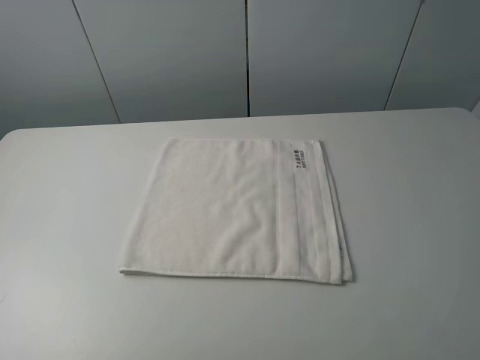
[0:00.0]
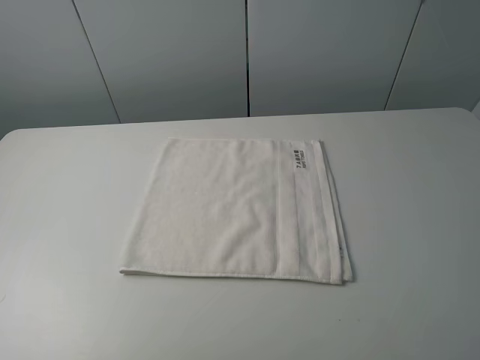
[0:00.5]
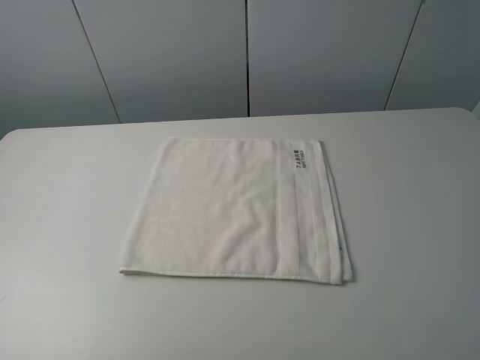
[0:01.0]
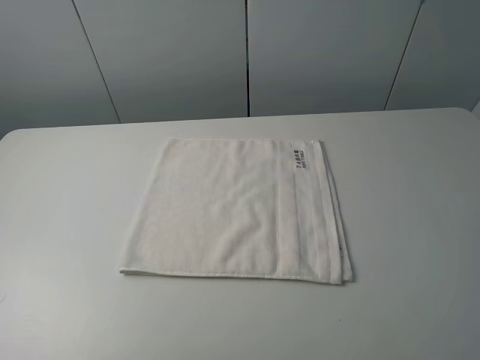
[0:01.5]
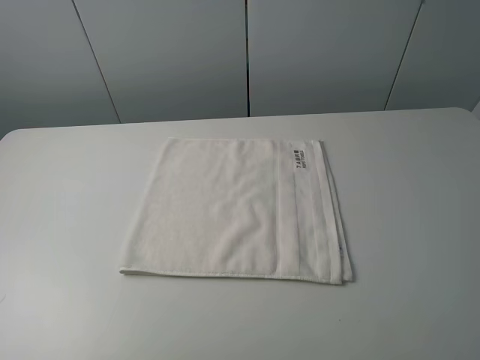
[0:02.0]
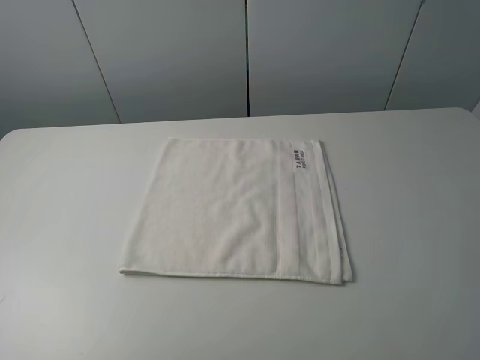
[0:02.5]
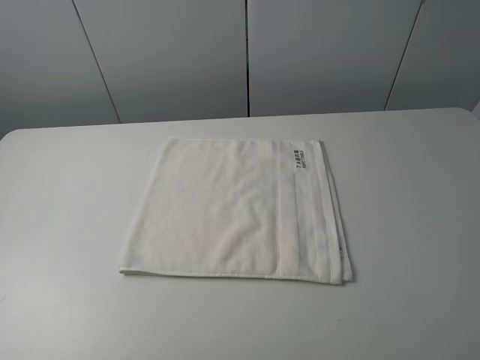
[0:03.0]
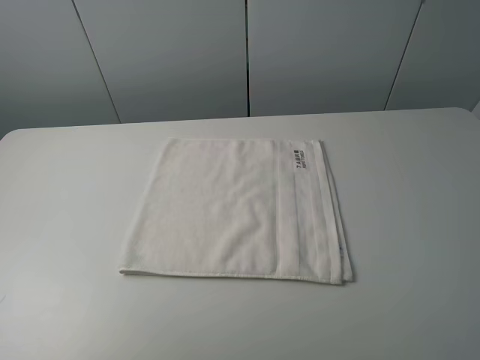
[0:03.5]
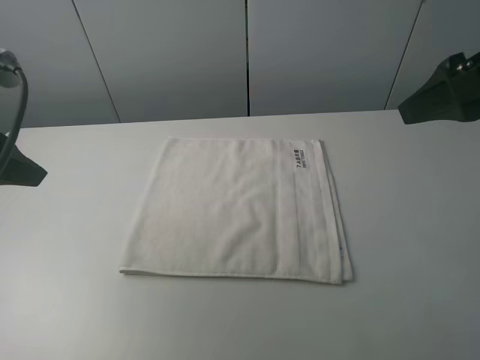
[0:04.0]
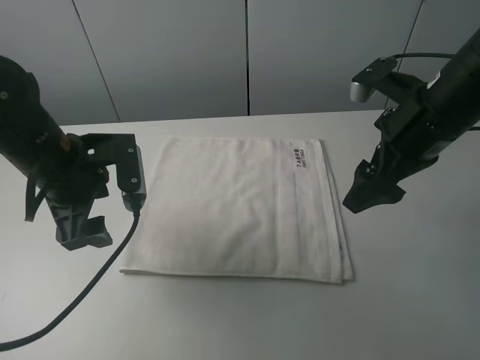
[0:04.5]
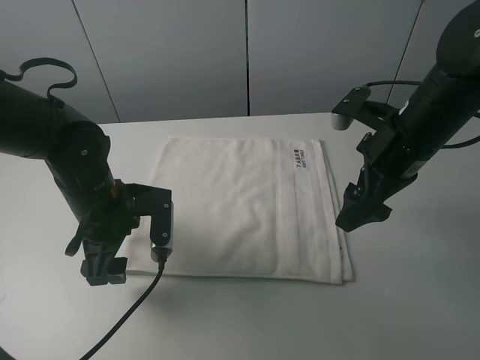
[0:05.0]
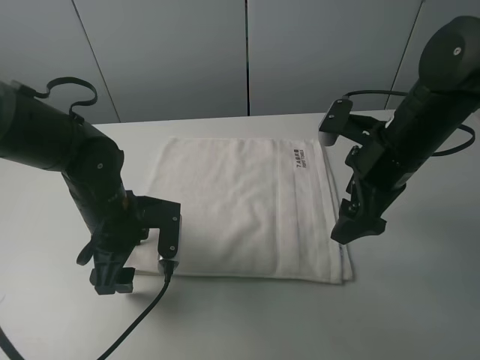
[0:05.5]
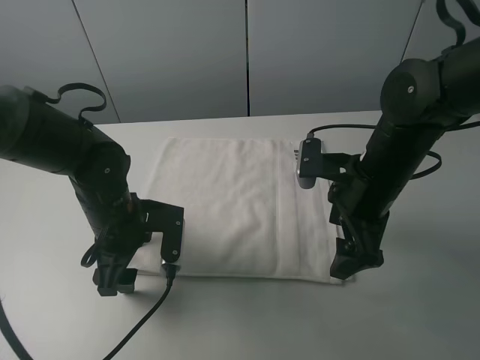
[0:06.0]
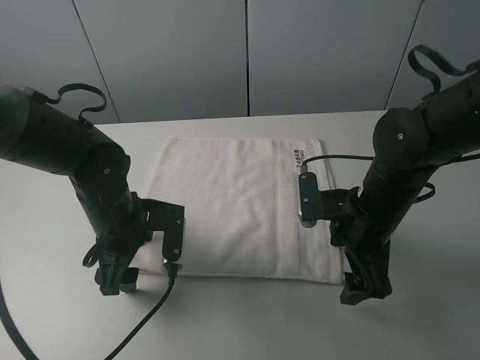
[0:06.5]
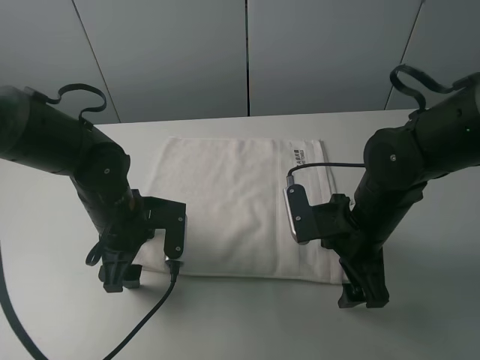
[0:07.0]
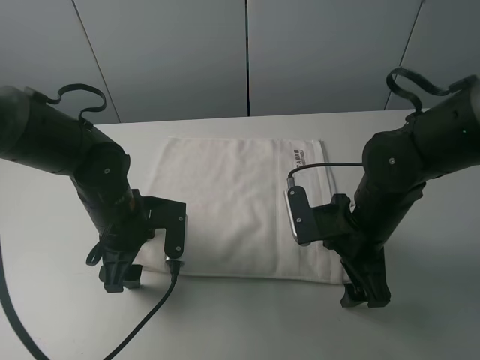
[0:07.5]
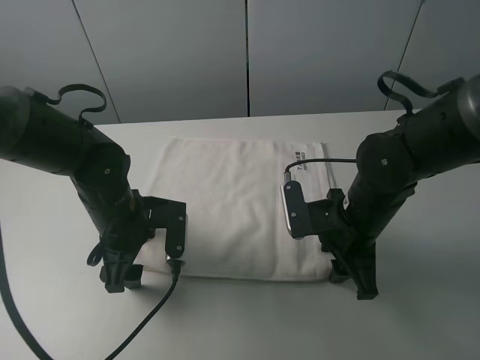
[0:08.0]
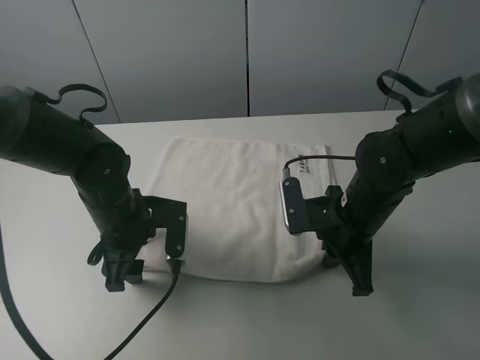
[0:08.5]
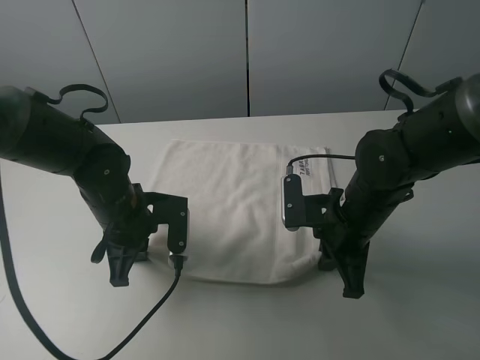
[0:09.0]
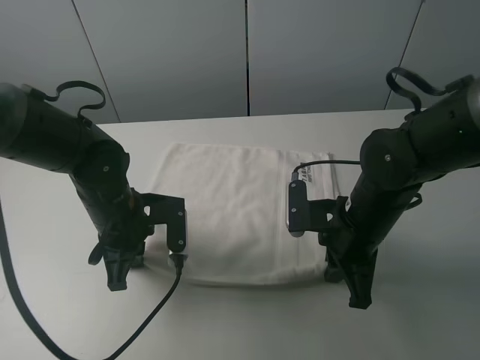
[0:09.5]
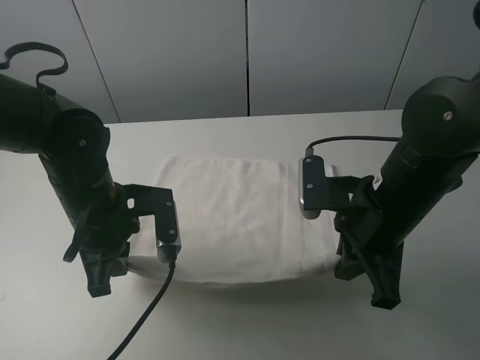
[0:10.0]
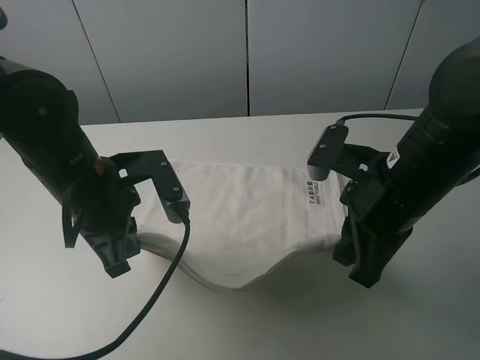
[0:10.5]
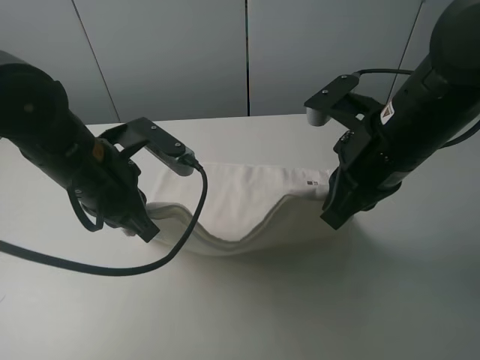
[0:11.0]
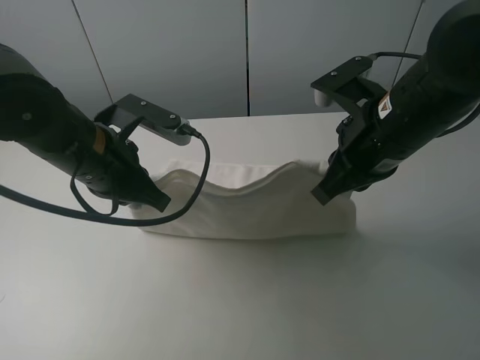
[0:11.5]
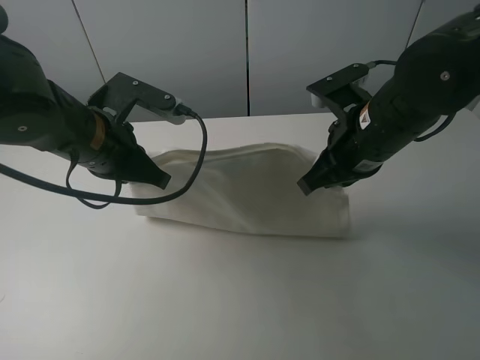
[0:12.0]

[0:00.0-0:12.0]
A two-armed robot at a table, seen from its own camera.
Task of the whole recording: fold the towels on the table.
Step, 0:00.0 to 0:08.0: Grasp the white towel with the right gripper.
0:00.0 to 0:02.0: Both grippers stay about where they are.
0:02.0 to 0:04.0: The two grippers go approximately 20 cm forward.
0:04.0 to 0:06.0: The left gripper goes some 20 cm downward and to the right. The right gripper moves downward and to the left, about 20 cm.
0:06.0 to 0:08.0: The right gripper shifts roughly 5 cm downward, and closes its fingers.
0:08.0 to 0:10.0: The left gripper ends up some 5 cm from where it was, and closes its fingers. The right gripper goes some 5 cm upward, and closes.
0:10.0 to 0:12.0: The right gripper is displaced forward by about 5 cm, while the left gripper goes approximately 5 cm upward.

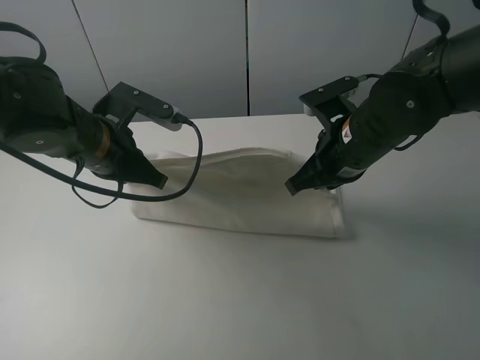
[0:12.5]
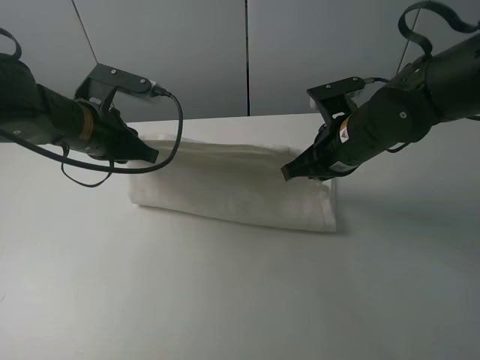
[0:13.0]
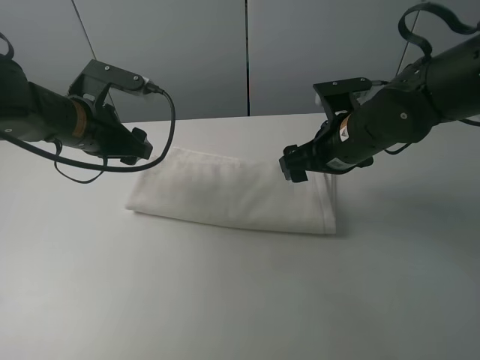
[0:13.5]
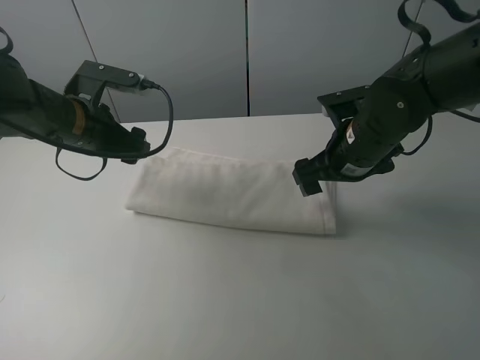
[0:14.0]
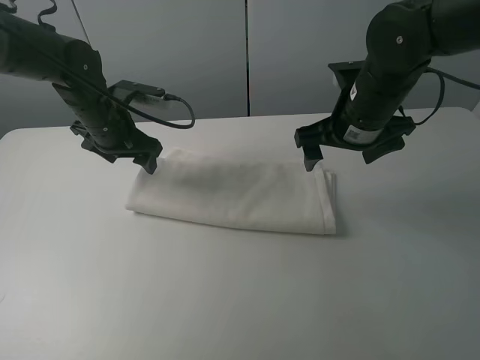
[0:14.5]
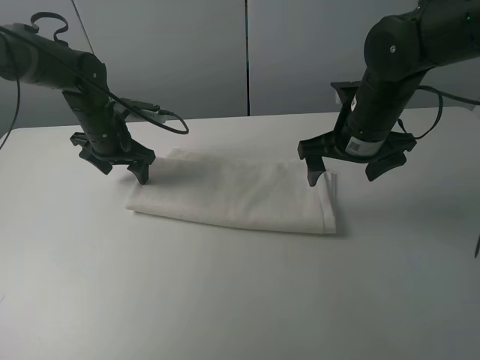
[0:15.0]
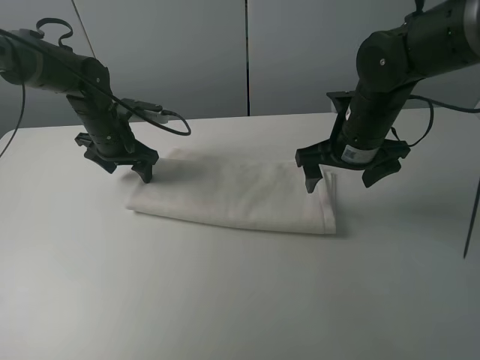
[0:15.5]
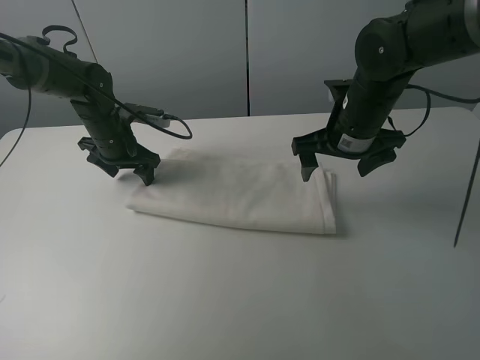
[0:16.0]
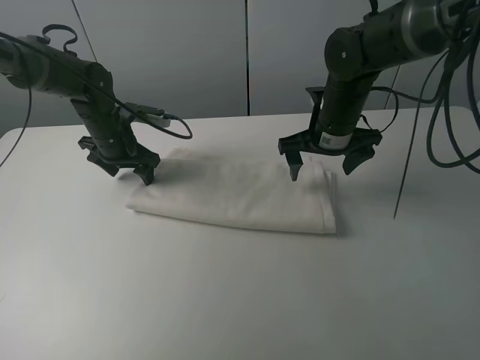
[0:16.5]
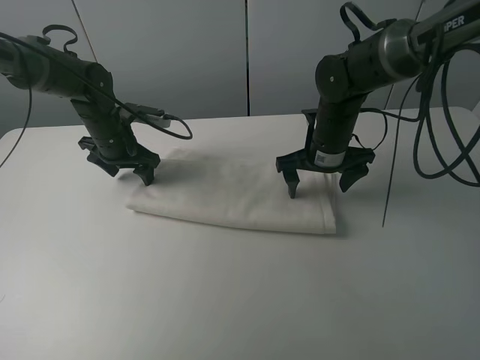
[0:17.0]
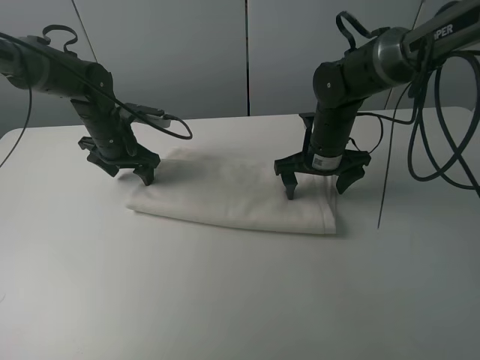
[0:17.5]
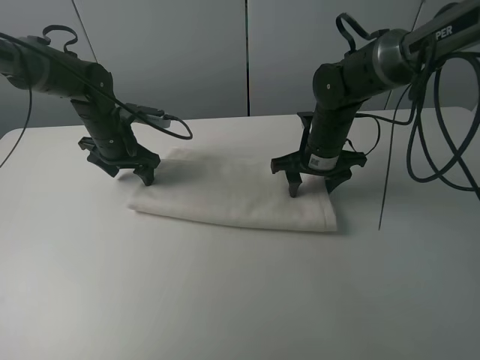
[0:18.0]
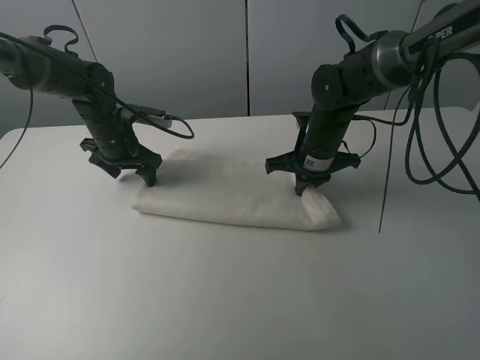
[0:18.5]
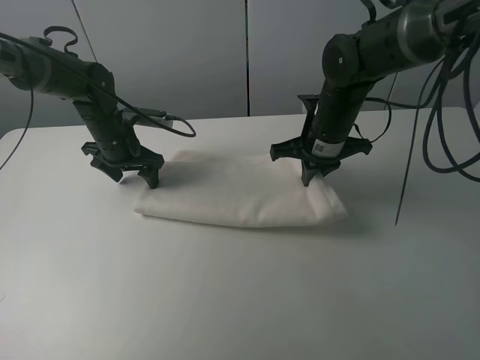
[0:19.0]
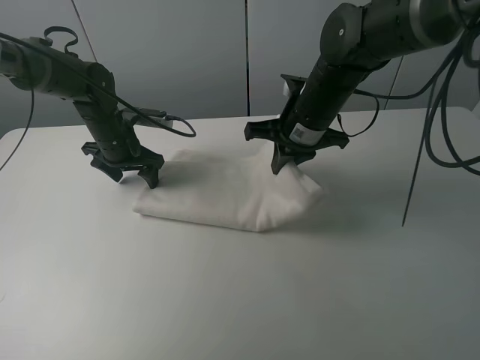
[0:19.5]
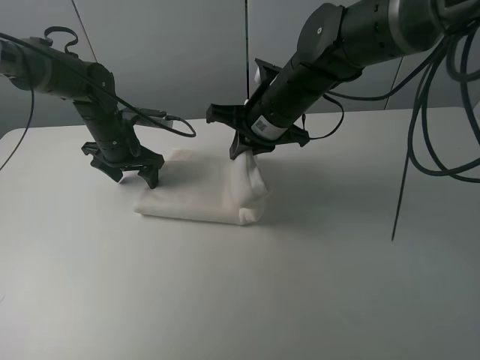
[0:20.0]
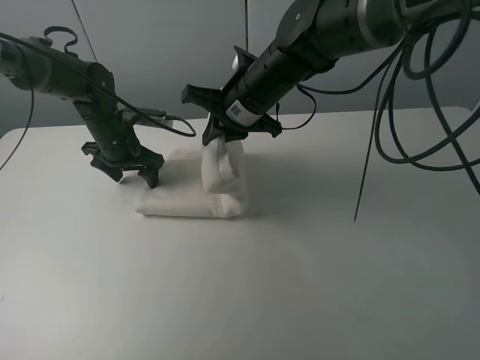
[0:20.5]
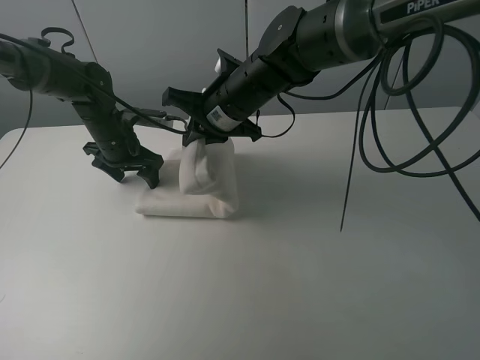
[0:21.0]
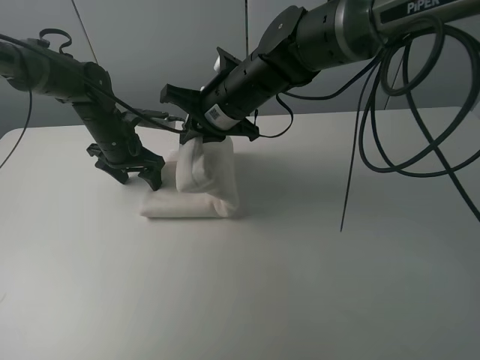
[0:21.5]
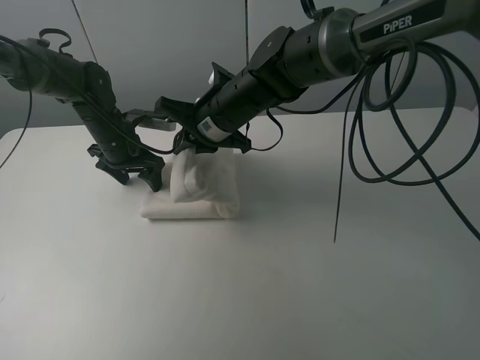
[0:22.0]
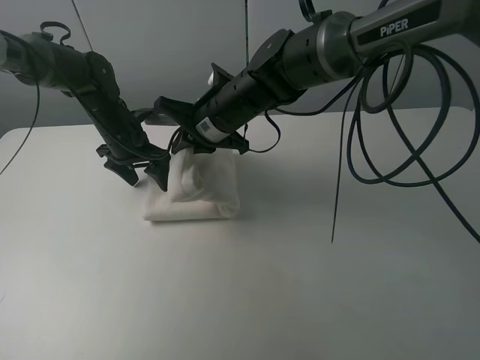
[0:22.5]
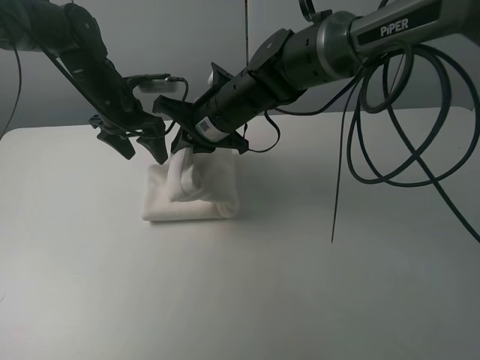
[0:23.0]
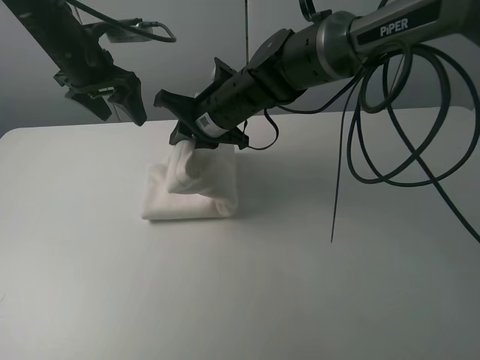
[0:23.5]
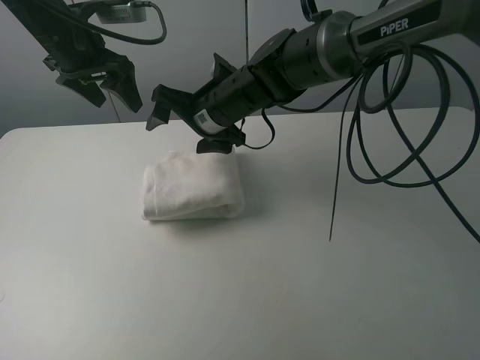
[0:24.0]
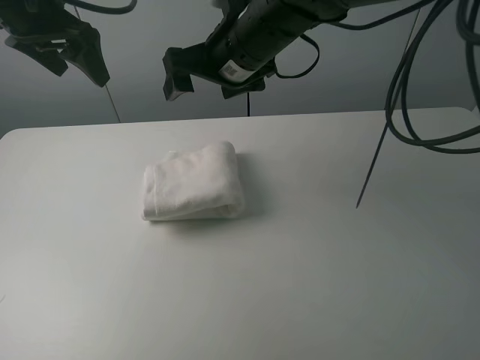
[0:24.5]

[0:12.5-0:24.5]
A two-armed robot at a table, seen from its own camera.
Task of the whole recording: fold the towels on the table.
Step, 0:14.0 to 0:15.5: Press on the white towel with the left gripper.
Step, 0:16.0 to 0:23.5: Fold the white towel from right to left with right gripper.
0:12.5 to 0:14.5: The right gripper changes place by some 5 cm, and opens; the left gripper heads forward, covering about 10 cm, and opens.
0:14.5 to 0:16.5: The left gripper travels downward by roughly 5 cm, while the right gripper goes roughly 5 cm downward and forward.
0:16.5 to 0:18.5: The right gripper closes up.
0:18.5 to 0:20.5: The right gripper travels to the left and upward by roughly 15 cm.
0:20.5 to 0:22.5: There are only small adjustments of the grippers.
0:22.5 to 0:24.5: The right gripper heads upward, covering some 10 cm, and opens its fingers. The left gripper shifts about 25 cm upward.

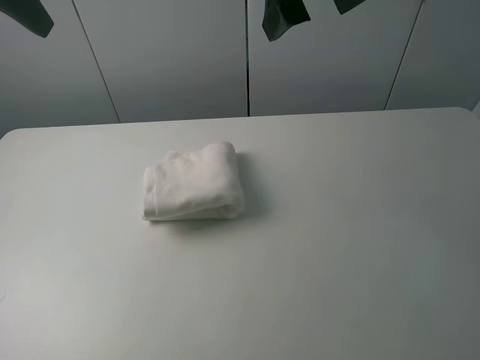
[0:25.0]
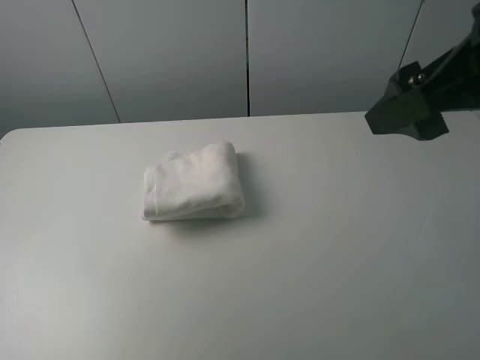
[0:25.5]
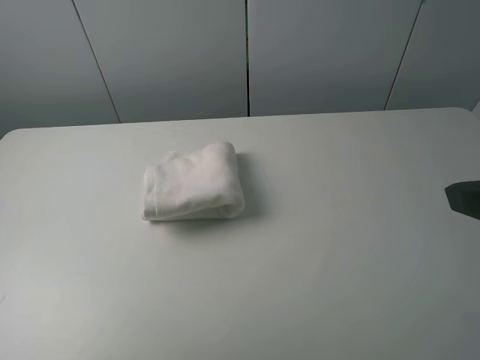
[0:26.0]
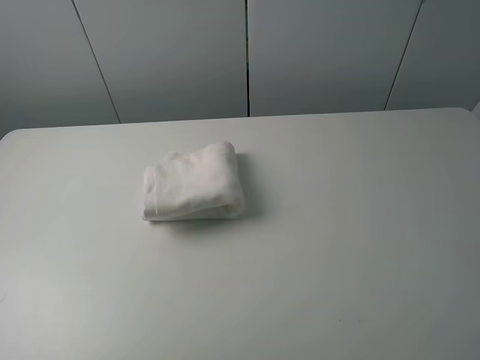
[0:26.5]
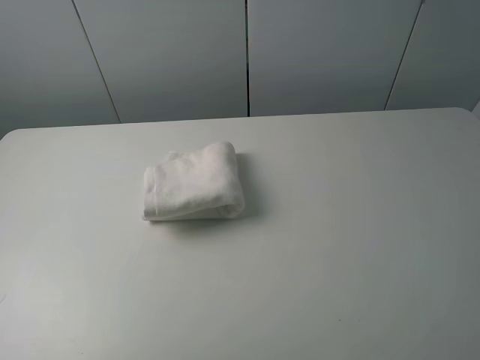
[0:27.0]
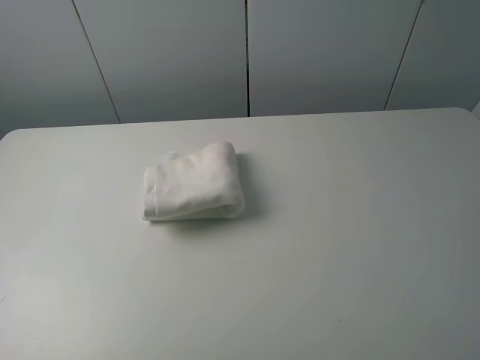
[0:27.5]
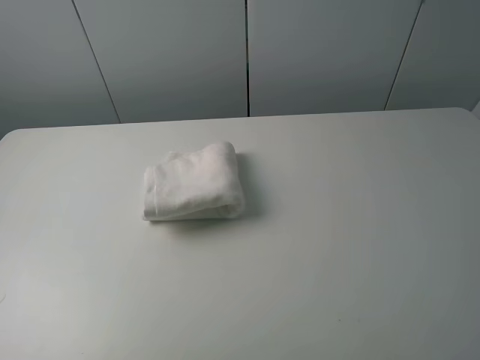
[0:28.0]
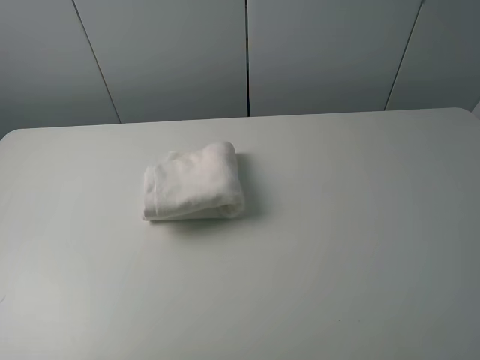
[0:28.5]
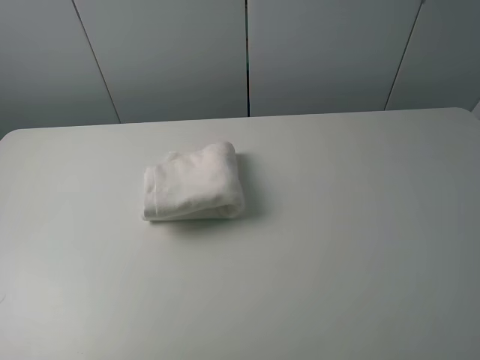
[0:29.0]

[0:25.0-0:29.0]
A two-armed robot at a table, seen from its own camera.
Task of the whole recording: fold the towels on the table.
0:25.0 to 0:27.0: The right gripper travels backward and to the right by some 30 cm. Meanwhile the left gripper shifts about 30 cm backward and downward.
